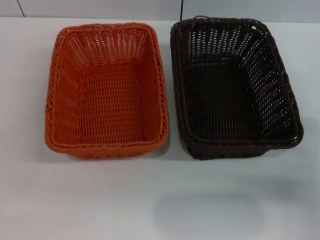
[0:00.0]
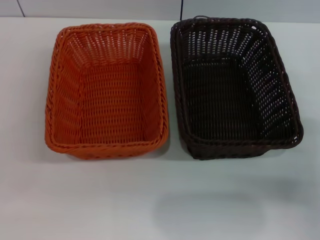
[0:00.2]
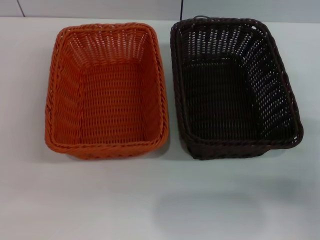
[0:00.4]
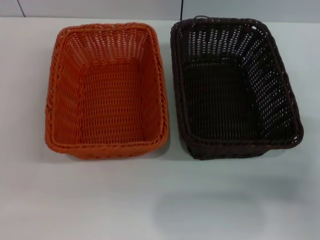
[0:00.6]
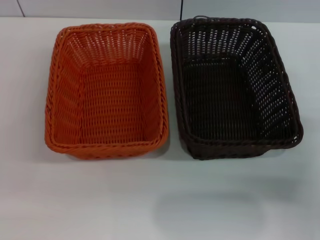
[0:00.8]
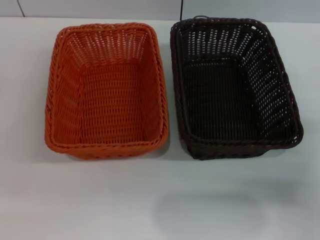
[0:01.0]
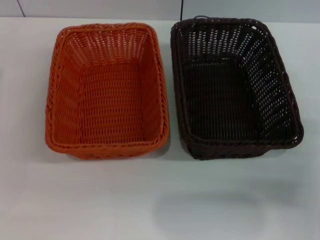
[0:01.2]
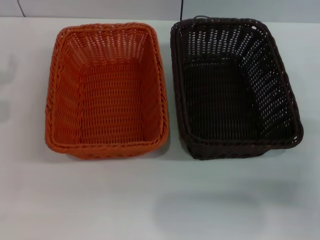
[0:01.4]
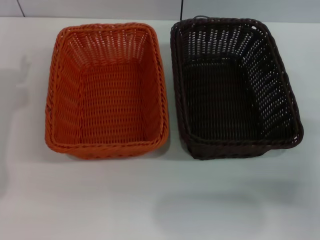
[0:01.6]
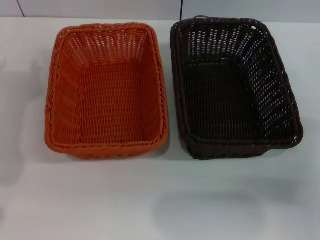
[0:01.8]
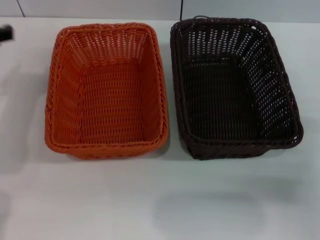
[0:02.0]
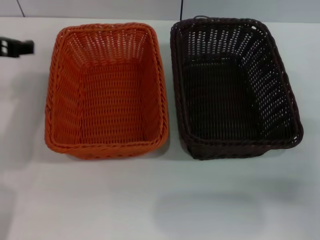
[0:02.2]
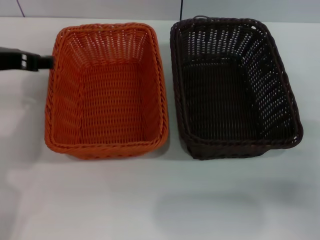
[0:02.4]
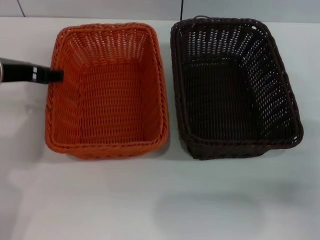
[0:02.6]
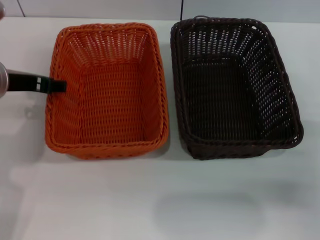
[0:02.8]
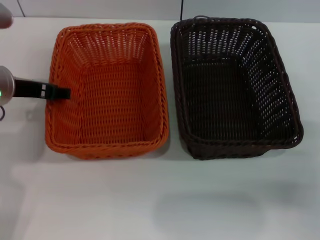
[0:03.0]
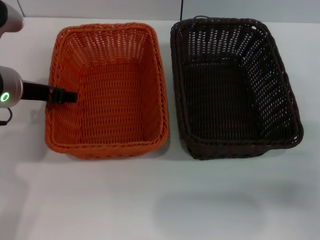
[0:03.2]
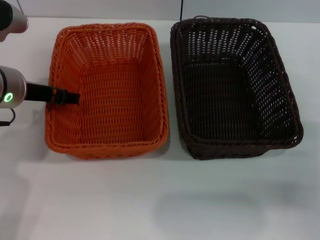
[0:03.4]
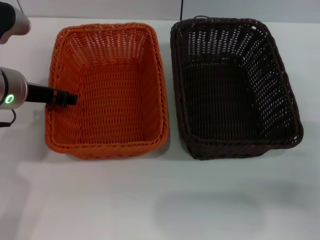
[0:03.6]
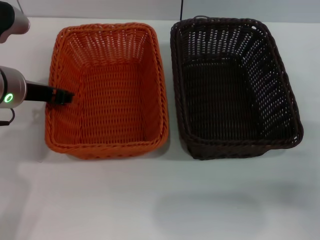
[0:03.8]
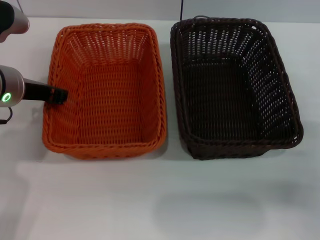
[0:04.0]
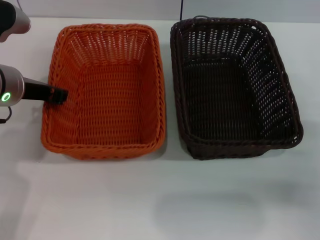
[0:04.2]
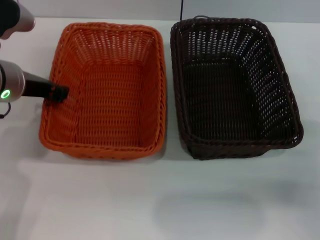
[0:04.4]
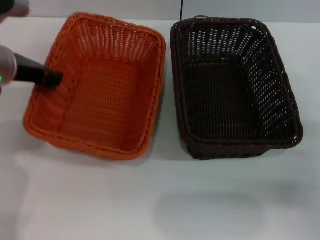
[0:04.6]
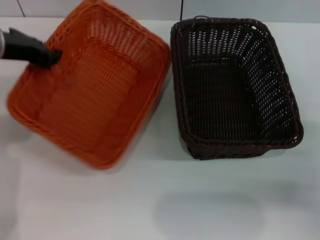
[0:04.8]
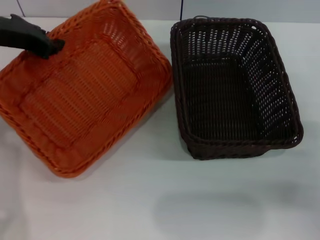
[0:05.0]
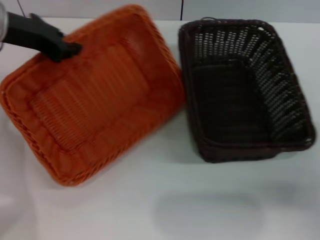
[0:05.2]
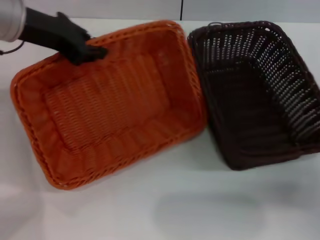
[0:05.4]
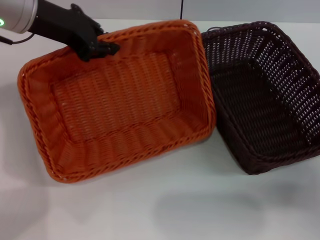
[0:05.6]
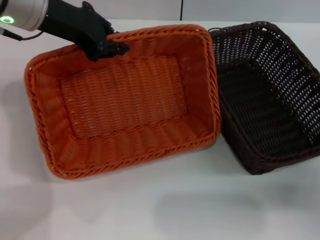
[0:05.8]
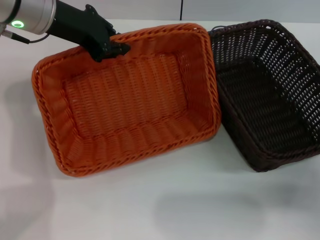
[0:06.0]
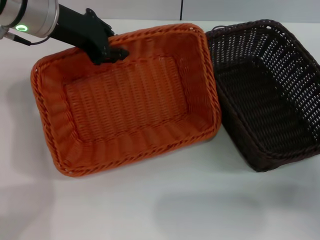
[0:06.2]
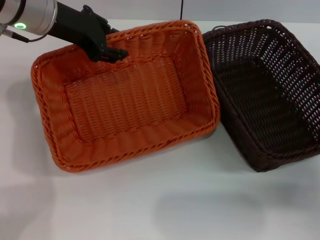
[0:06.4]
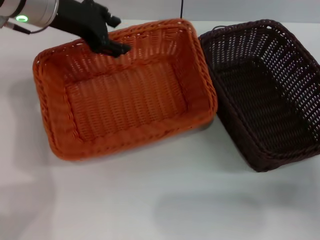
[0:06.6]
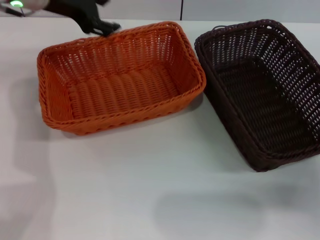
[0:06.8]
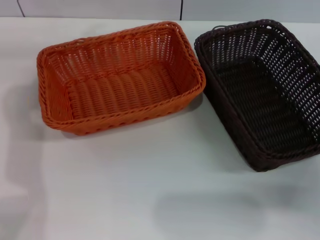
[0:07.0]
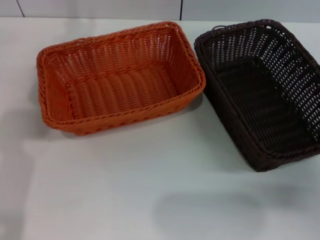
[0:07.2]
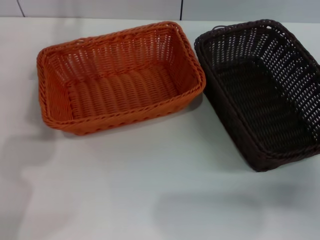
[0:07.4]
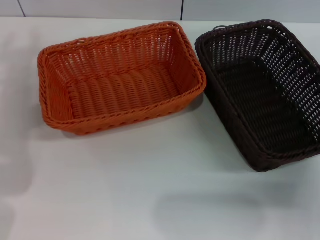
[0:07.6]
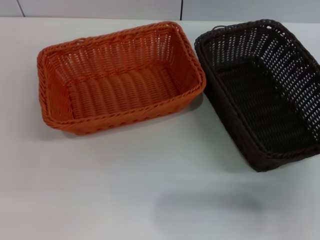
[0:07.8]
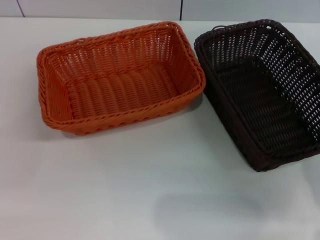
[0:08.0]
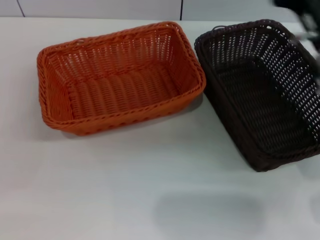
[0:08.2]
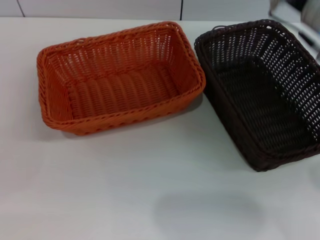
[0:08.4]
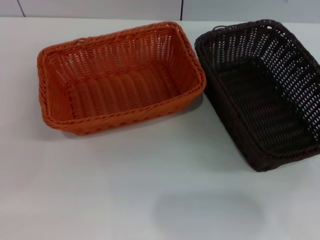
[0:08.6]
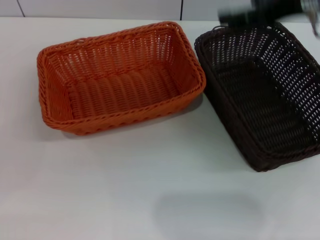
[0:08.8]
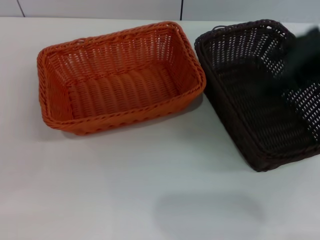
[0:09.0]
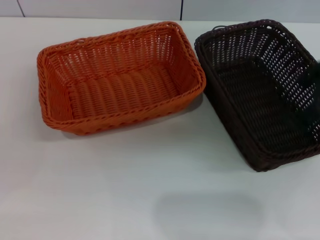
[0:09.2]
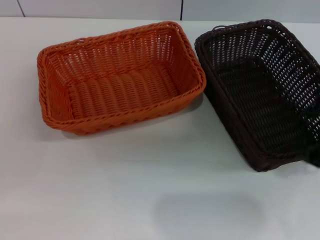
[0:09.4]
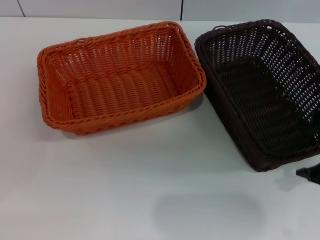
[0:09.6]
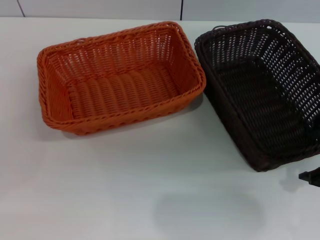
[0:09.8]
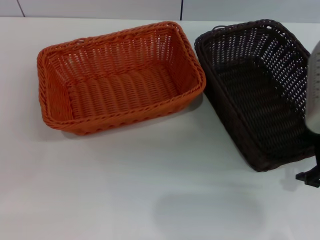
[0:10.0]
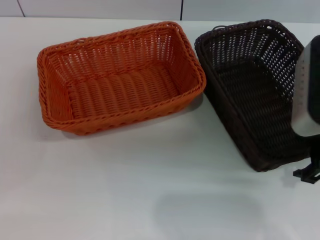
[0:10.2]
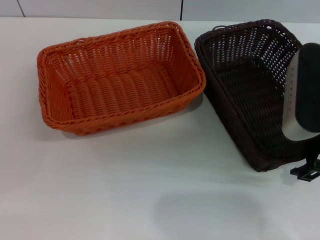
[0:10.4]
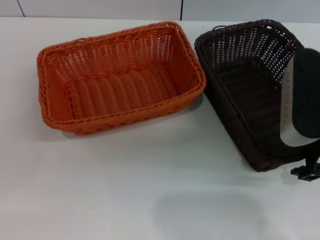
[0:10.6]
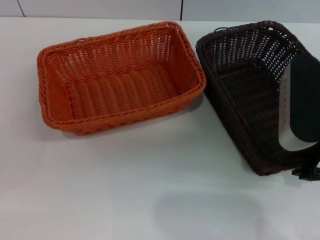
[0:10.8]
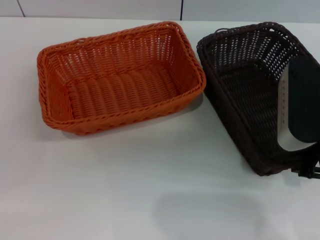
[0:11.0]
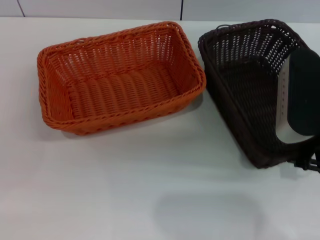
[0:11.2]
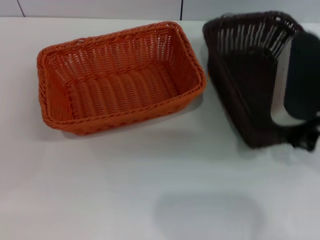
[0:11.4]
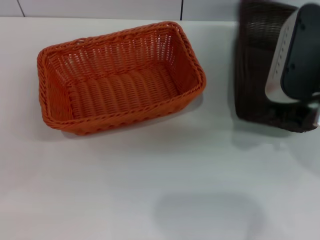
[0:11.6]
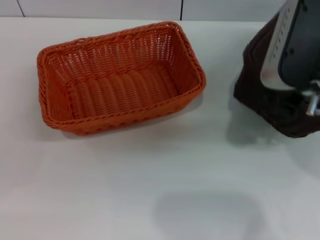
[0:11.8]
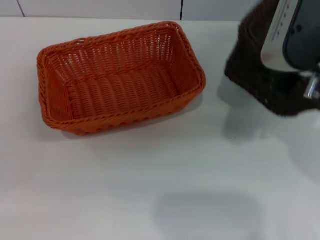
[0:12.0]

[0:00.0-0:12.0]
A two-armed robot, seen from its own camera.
Step, 0:00.0 to 0:04.6: Pick up the light basket with the left gripper.
Step, 0:04.8 to 0:06.6: Place the light basket in the center of view with the left gripper.
Step, 0:06.8 to 0:11.8: Pick up the dark basket with the right gripper.
0:01.6 to 0:03.0: The left gripper moves to the right, approximately 5 cm.
0:03.0 to 0:04.4: The left gripper closes.
0:04.4 to 0:06.0: The left gripper travels upward and forward by approximately 10 cm.
0:06.0 to 0:07.6: The left gripper heads to the left and backward, covering some 10 cm, and opens up.
0:07.6 to 0:09.0: The left gripper heads downward, backward and to the left, covering approximately 20 cm, while the right gripper goes about 25 cm upward.
0:09.0 to 0:10.4: The right gripper moves downward, some 10 cm.
0:10.4 to 0:12.0: The right gripper moves upward, roughly 5 cm, and closes up.

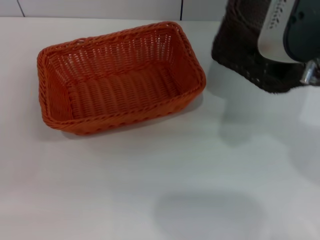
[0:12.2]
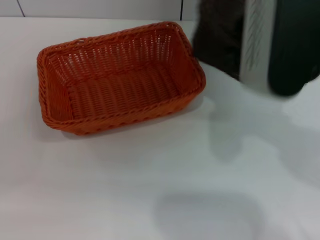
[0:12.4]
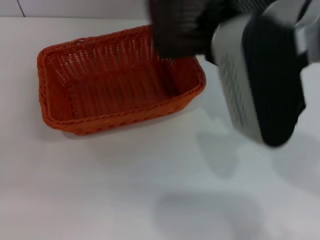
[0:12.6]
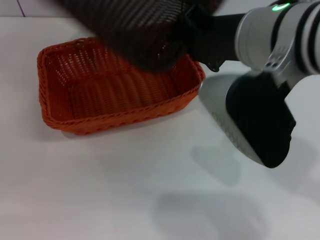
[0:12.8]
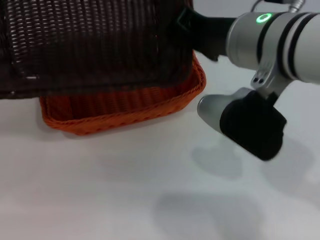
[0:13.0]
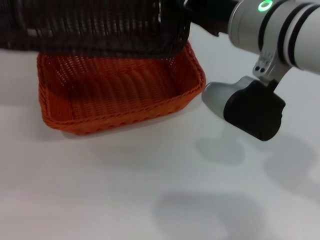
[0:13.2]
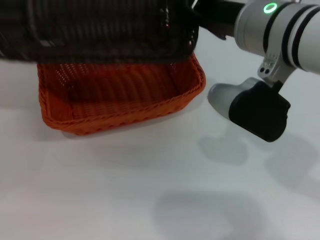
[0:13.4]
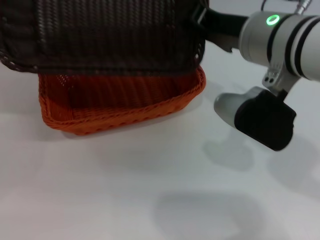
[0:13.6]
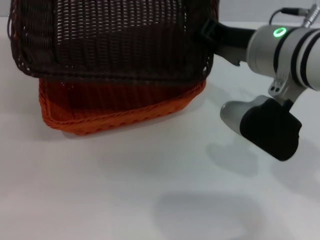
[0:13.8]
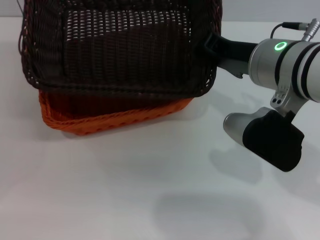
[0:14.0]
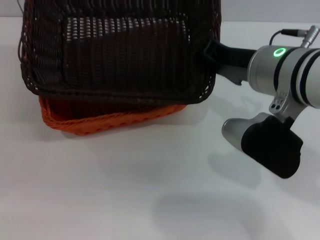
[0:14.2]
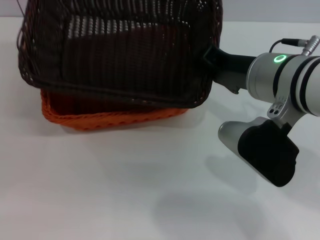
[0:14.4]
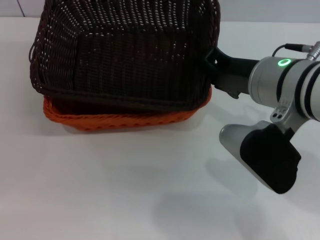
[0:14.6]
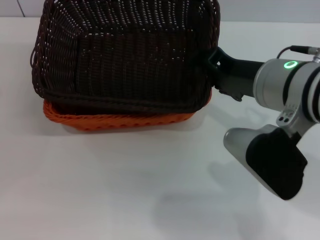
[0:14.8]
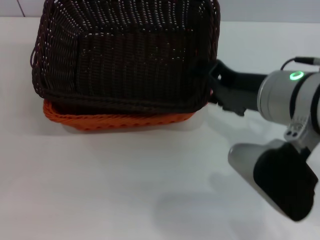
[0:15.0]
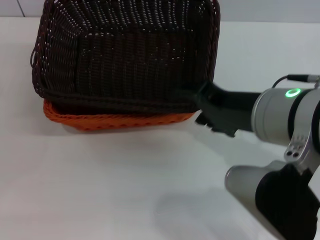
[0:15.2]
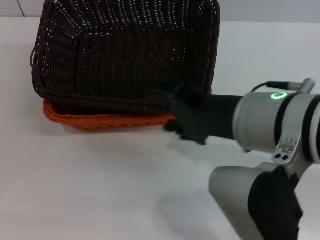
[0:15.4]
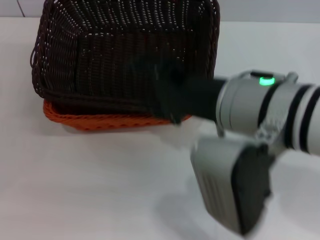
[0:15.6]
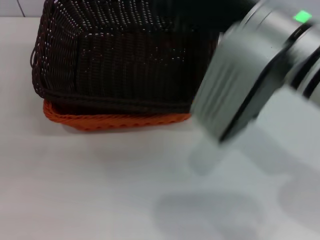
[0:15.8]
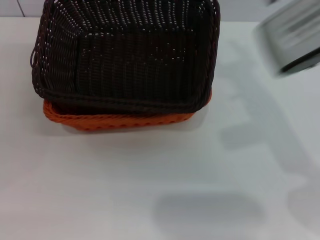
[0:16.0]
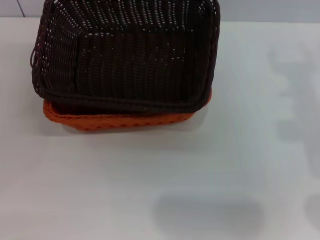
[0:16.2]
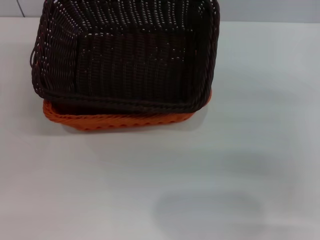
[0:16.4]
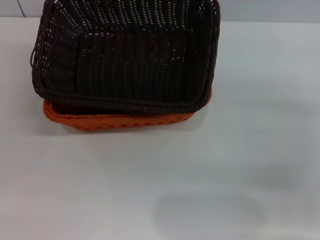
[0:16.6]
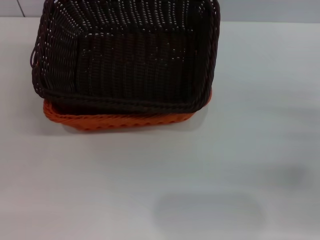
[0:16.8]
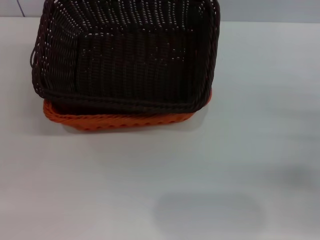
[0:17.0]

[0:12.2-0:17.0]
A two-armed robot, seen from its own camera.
Step, 0:12.2 to 0:14.8: Place the dark basket on the light basket with the right gripper.
0:12.2 to 0:13.8: The right gripper moves downward, some 5 cm.
0:13.8 to 0:15.4: The right gripper travels backward by roughly 10 cm, and opens up.
0:15.4 to 0:17.0: The right gripper heads to the right and downward, covering approximately 25 cm.
